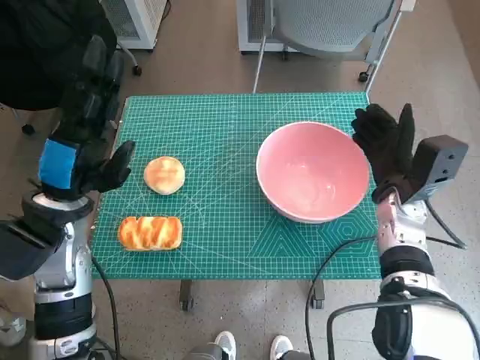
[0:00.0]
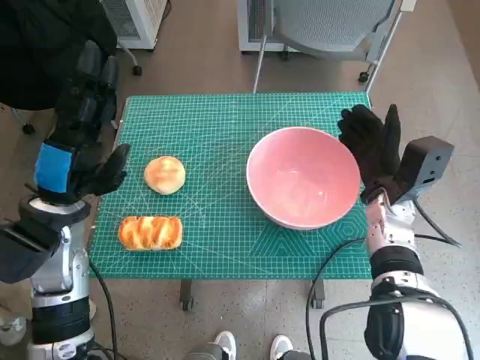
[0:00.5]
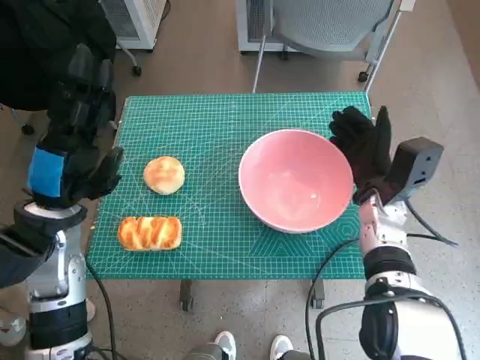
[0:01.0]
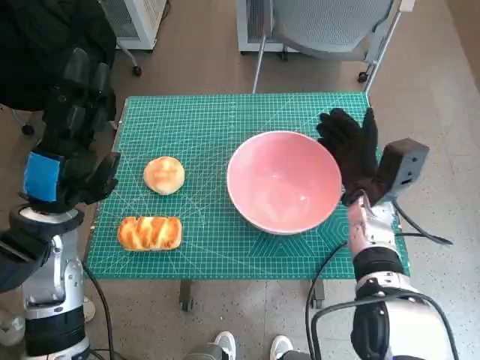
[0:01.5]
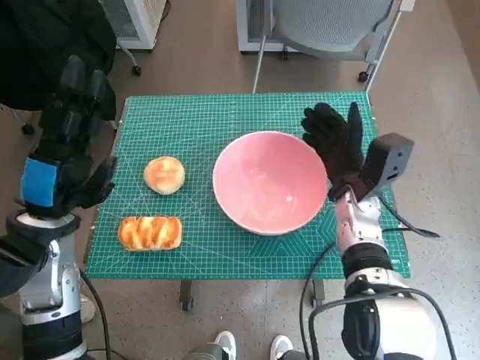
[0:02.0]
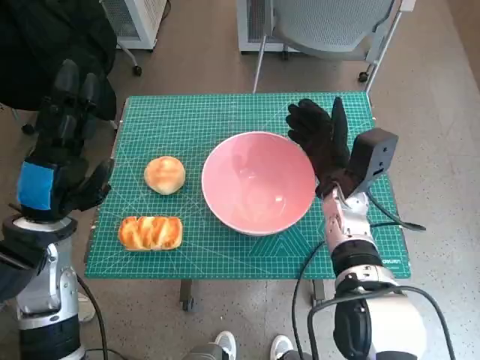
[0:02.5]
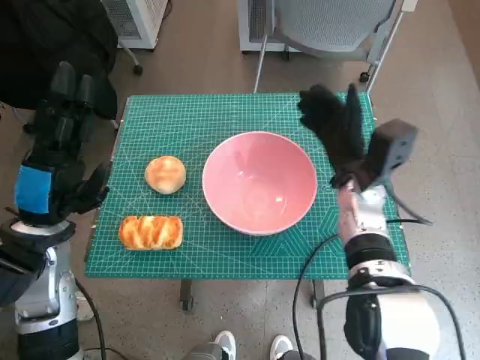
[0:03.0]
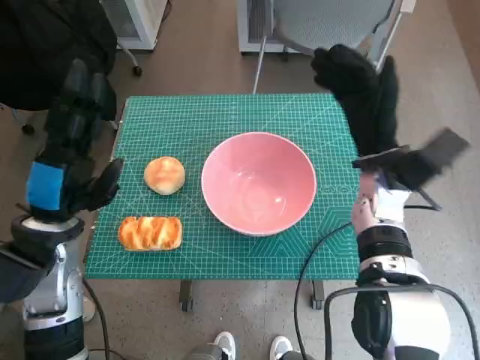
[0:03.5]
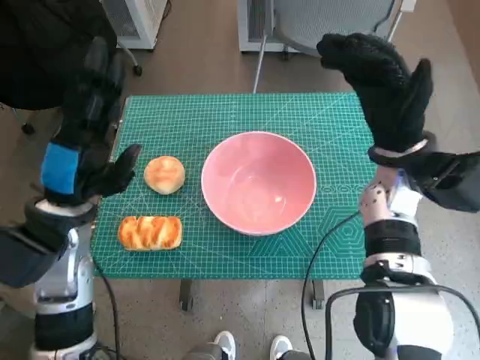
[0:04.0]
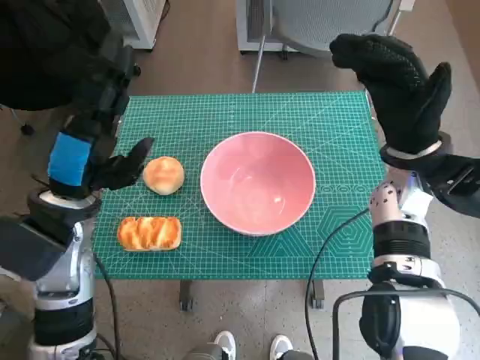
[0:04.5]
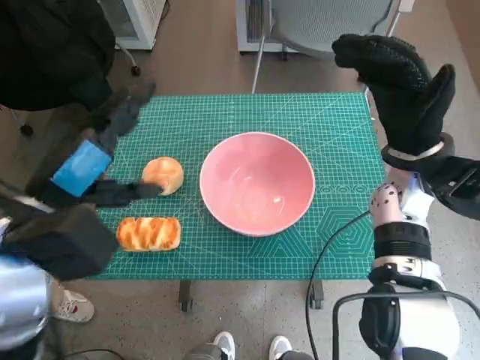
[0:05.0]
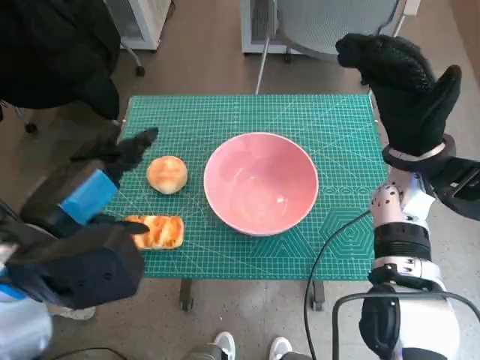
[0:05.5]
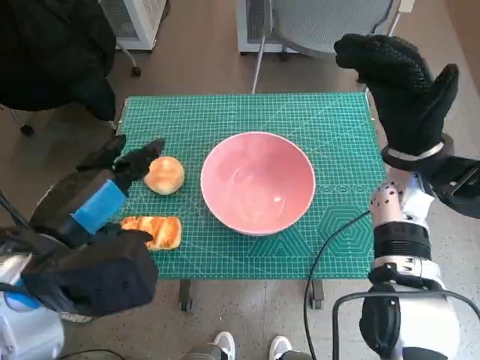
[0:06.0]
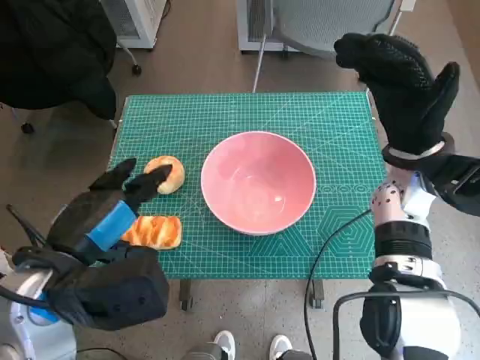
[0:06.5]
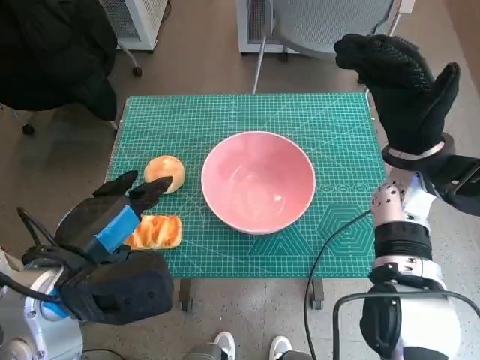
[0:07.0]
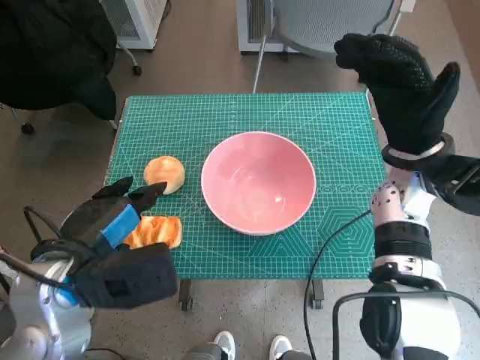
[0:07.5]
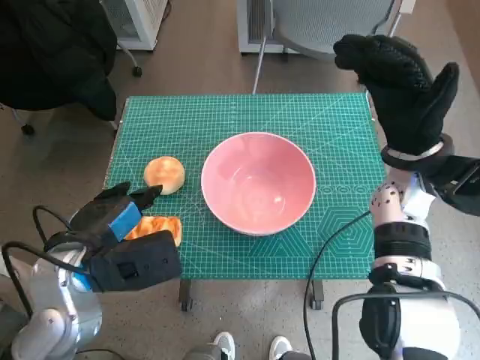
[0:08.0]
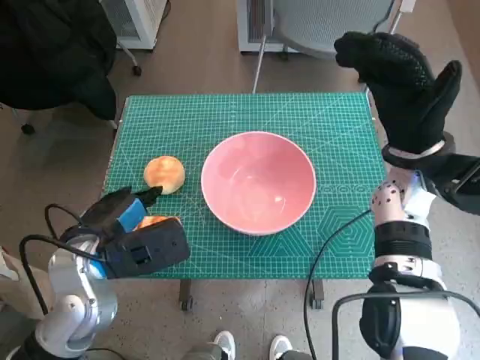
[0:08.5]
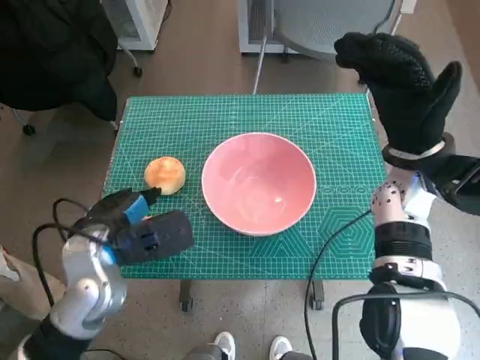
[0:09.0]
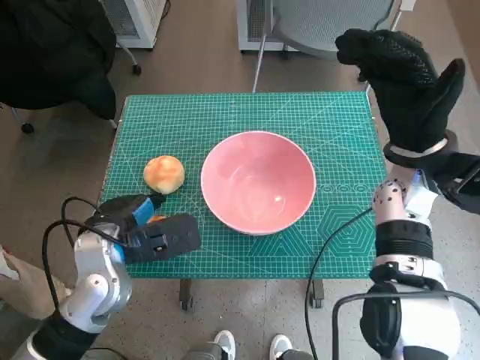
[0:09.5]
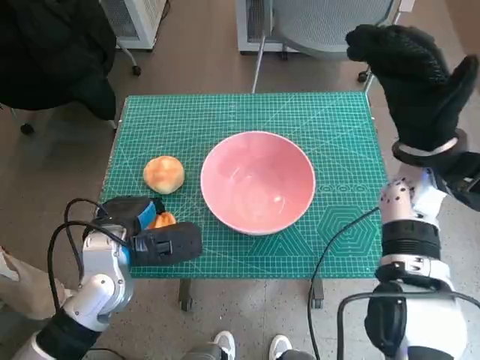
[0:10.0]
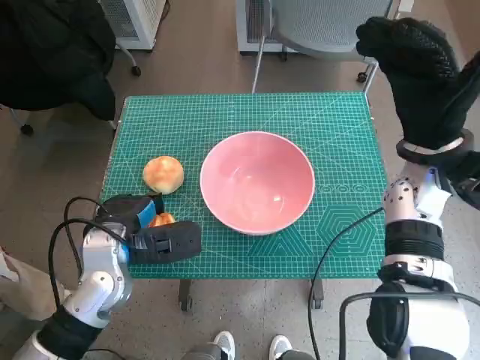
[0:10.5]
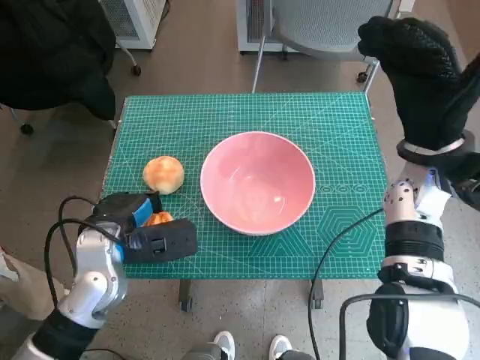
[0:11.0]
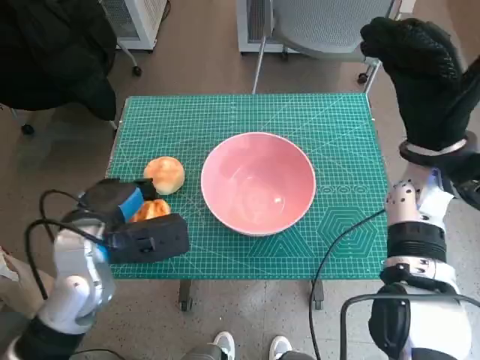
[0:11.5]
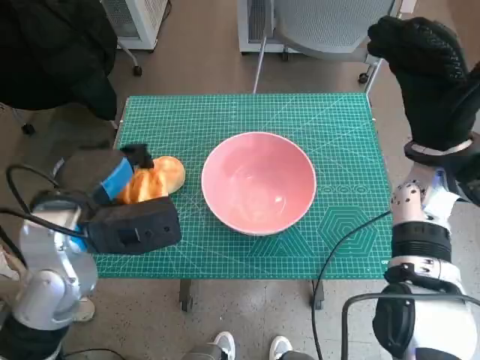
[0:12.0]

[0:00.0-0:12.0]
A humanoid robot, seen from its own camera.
Step, 0:00.0 to 0:02.5: Move the pink bowl to the center of table with right hand.
Step, 0:03.0 to 0:10.0: Grasp the long bread with left hand.
0:00.0 to 0:02.0: The right hand goes roughly 5 cm to the left.
0:02.0 to 0:04.0: The right hand heads upward, covering approximately 10 cm.
0:04.0 to 0:06.0: The left hand goes approximately 10 cm backward and upward.
0:06.0 to 0:08.0: The left hand travels downward by some 5 cm.
0:08.0 to 0:10.0: The left hand travels downward by some 5 cm.
0:10.0 to 0:12.0: The left hand goes approximately 10 cm upward.

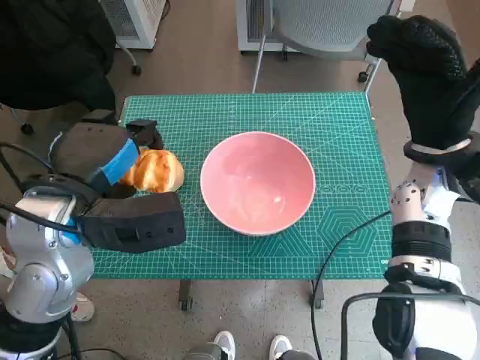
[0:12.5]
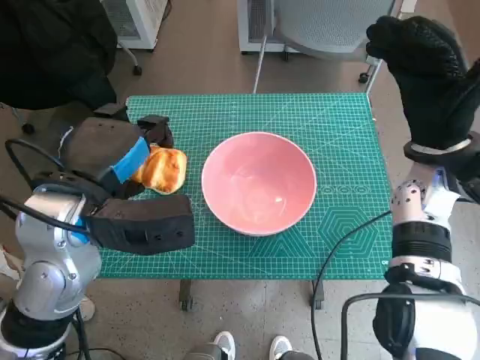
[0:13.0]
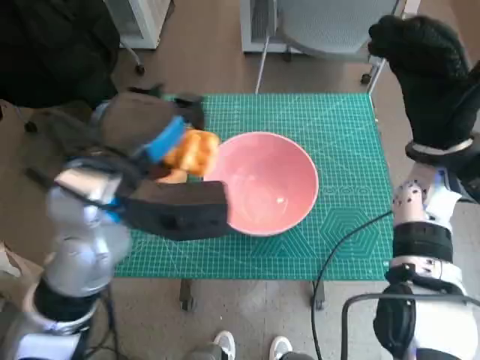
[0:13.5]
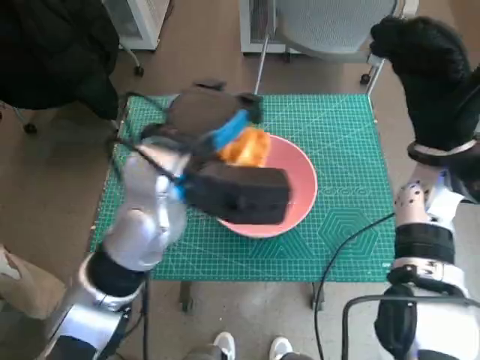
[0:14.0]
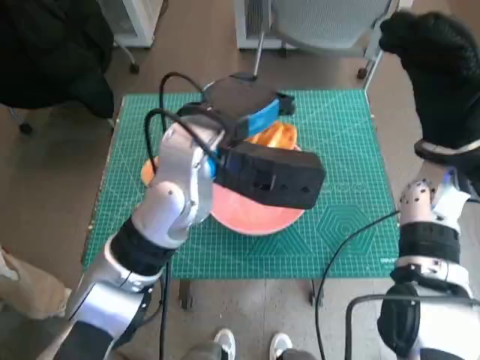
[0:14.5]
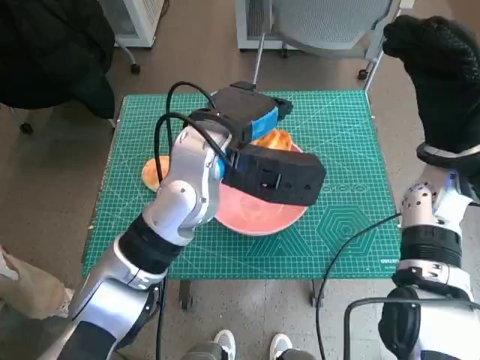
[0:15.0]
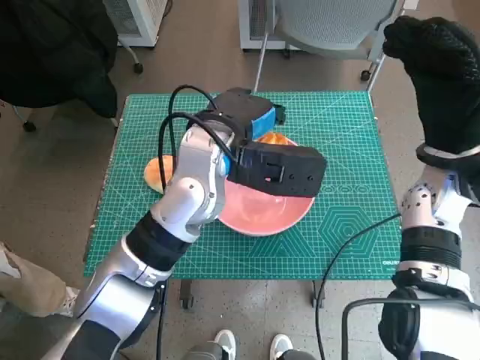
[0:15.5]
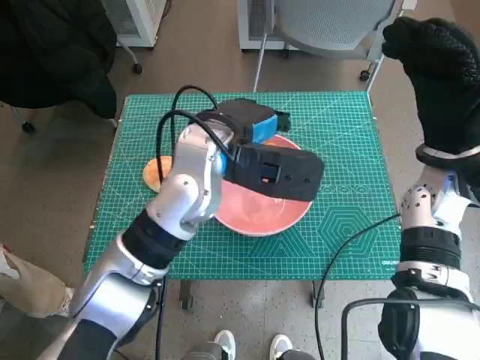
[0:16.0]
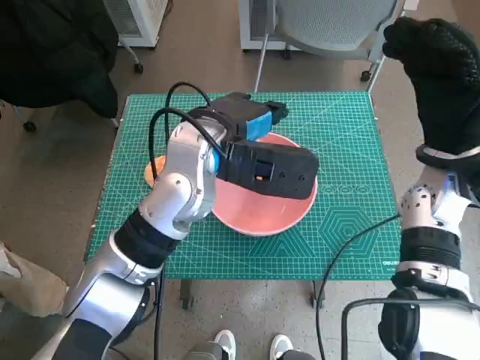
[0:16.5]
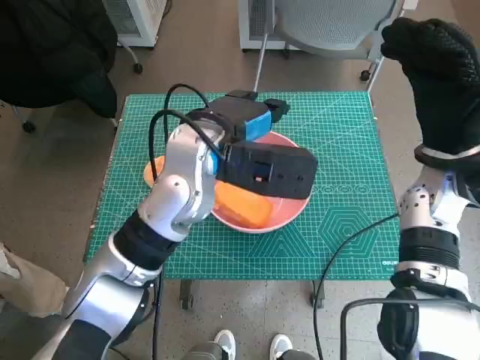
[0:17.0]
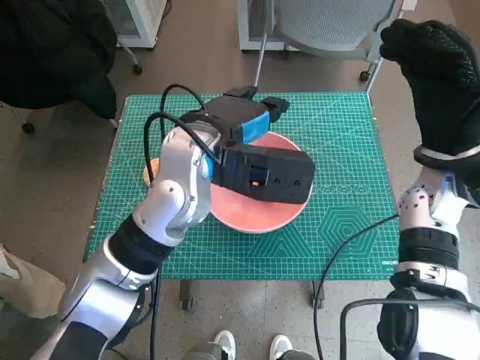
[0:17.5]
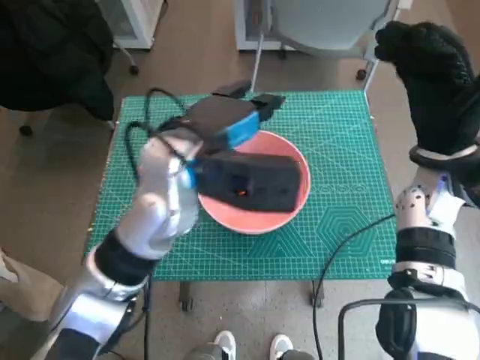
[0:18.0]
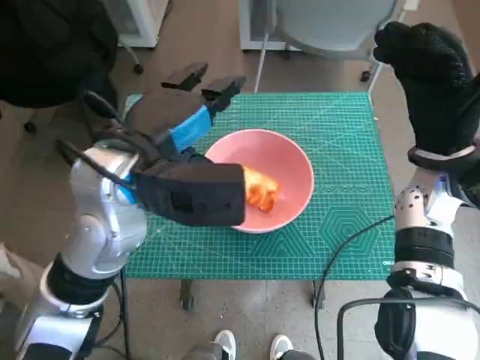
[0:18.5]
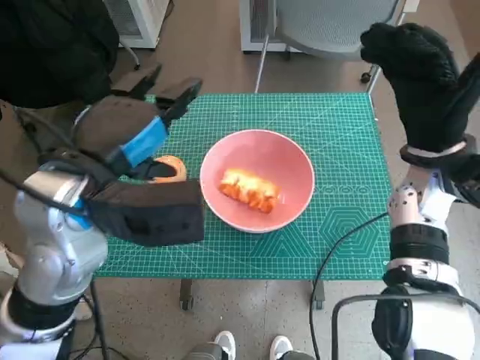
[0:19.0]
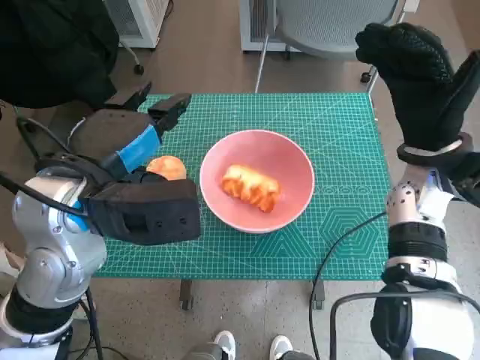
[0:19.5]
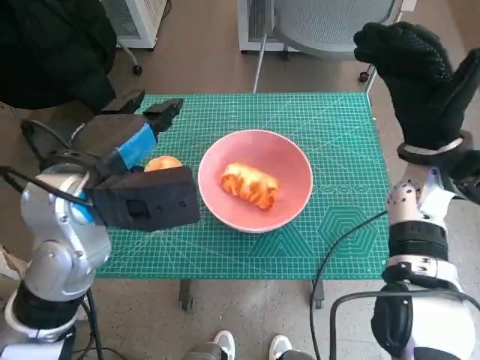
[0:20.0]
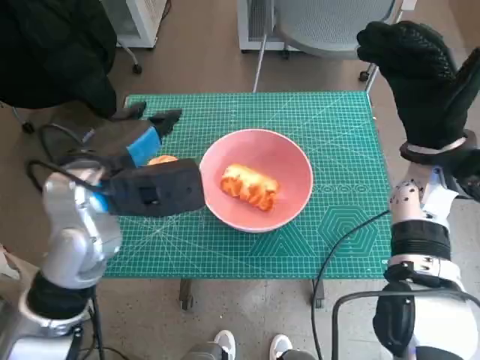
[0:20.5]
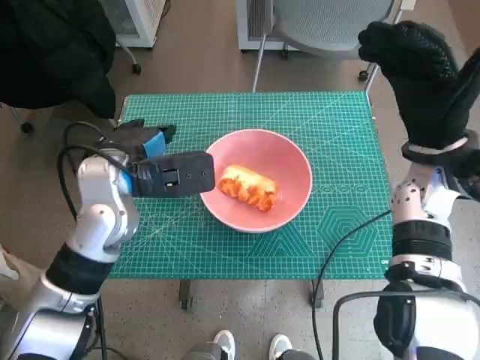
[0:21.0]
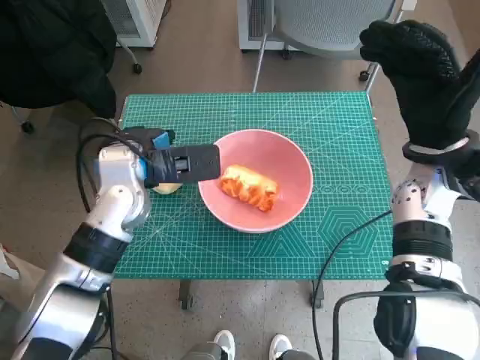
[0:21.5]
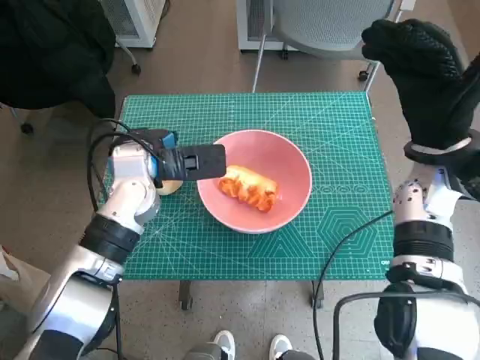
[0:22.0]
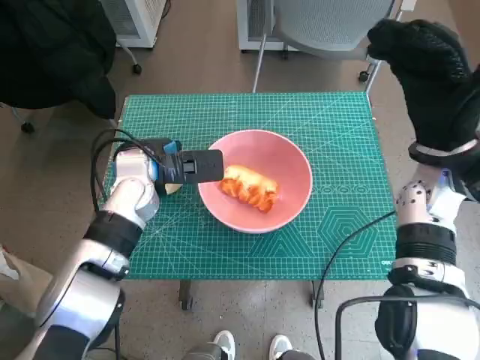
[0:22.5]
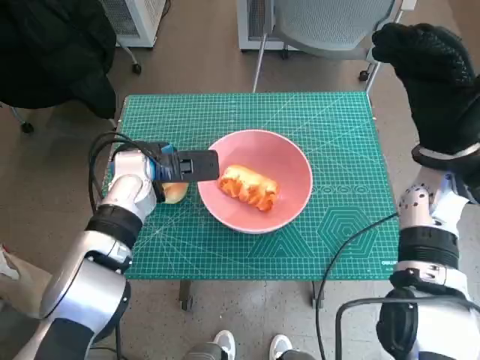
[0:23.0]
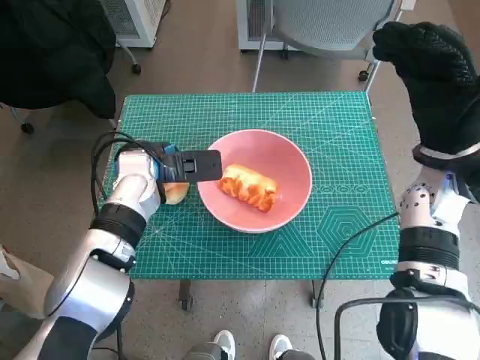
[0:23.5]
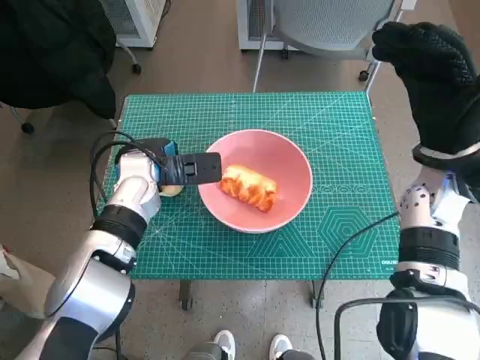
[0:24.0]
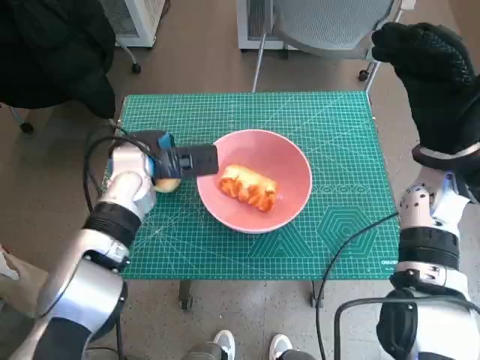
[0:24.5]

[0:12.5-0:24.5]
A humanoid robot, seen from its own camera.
Step, 0:12.5 to 0:17.0: Place the long bread in pink bowl with left hand.
Step, 0:17.5 to 0:24.0: Grasp the round bread with left hand.
0:12.5 to 0:14.5: The left hand moves to the right and forward, roughly 15 cm.
0:14.5 to 0:16.5: The hands make only small movements.
0:16.5 to 0:18.5: The left hand travels to the left and backward by approximately 10 cm.
0:18.5 to 0:20.5: The left hand shifts by approximately 5 cm.
0:20.5 to 0:22.5: The left hand shifts some 10 cm forward and downward.
0:22.5 to 0:24.5: The hands make only small movements.

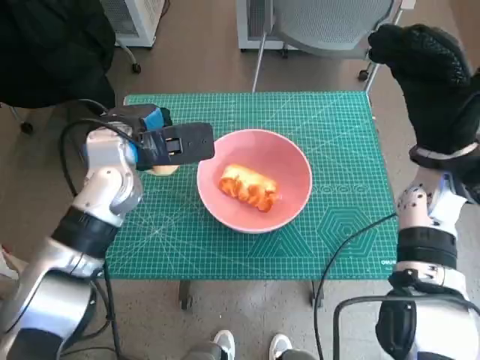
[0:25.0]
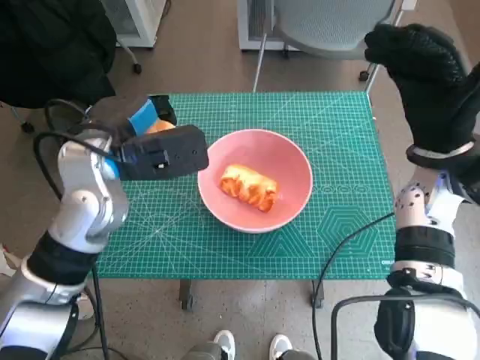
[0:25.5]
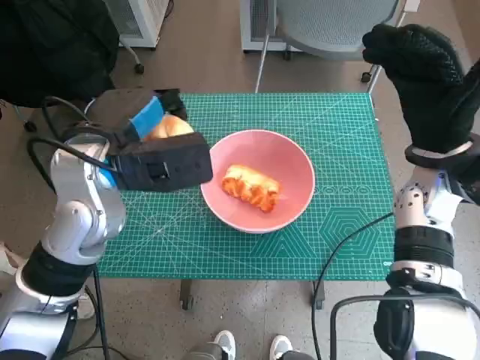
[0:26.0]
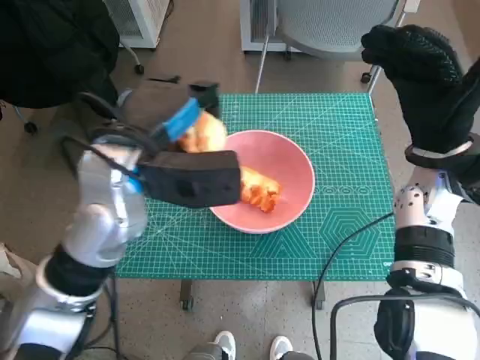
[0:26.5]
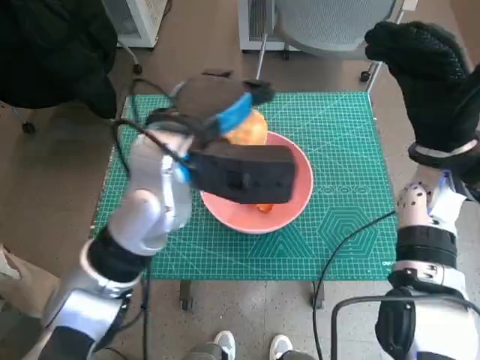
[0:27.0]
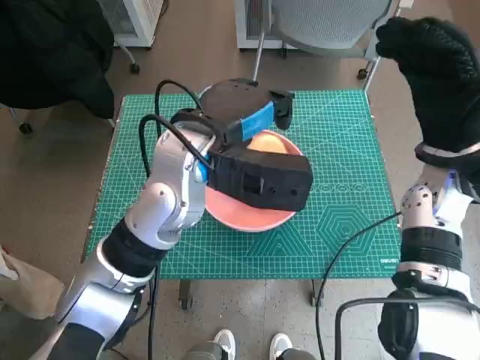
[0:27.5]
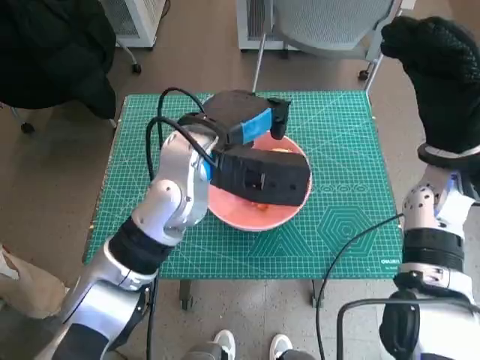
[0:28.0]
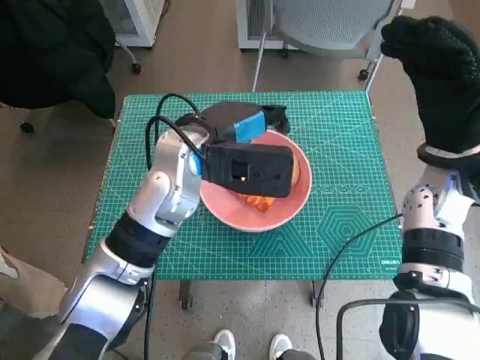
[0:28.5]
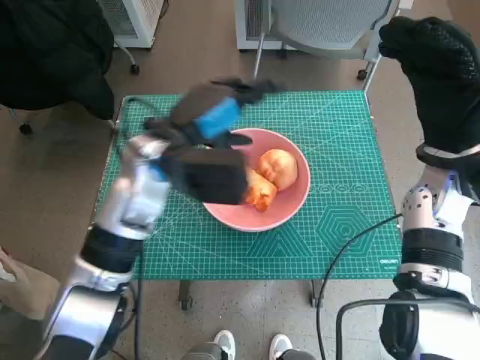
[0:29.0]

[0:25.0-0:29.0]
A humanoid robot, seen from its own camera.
Step, 0:25.0 to 0:28.0: Place the round bread in pink bowl with left hand.
0:25.0 to 0:27.0: The left hand shifts approximately 10 cm to the right and upward.
0:27.0 to 0:29.0: The left hand changes place by roughly 5 cm.
